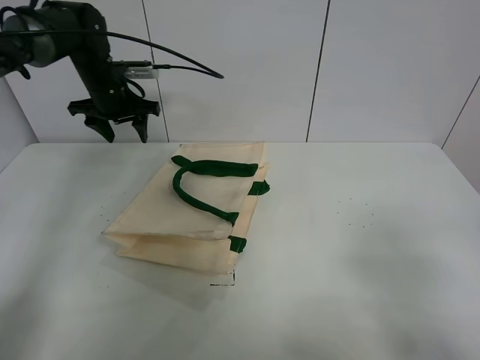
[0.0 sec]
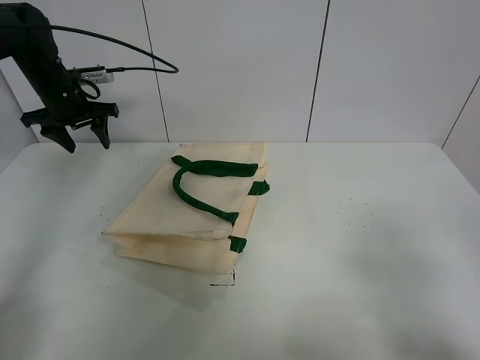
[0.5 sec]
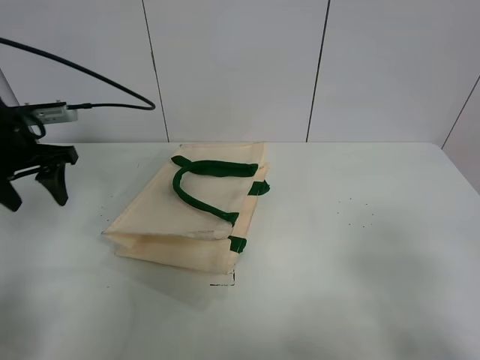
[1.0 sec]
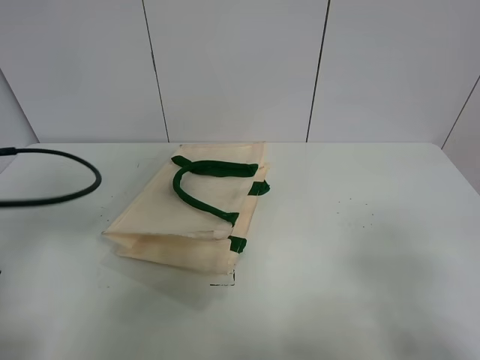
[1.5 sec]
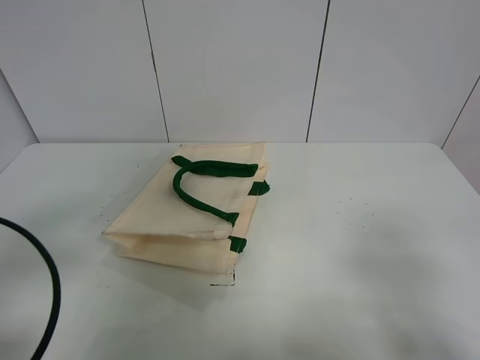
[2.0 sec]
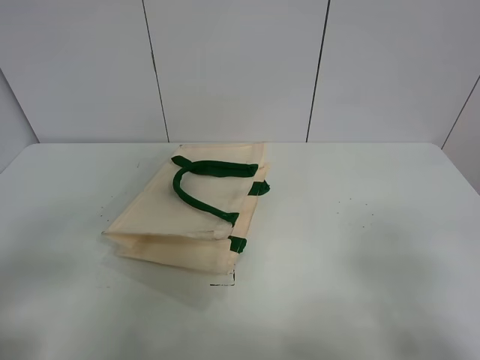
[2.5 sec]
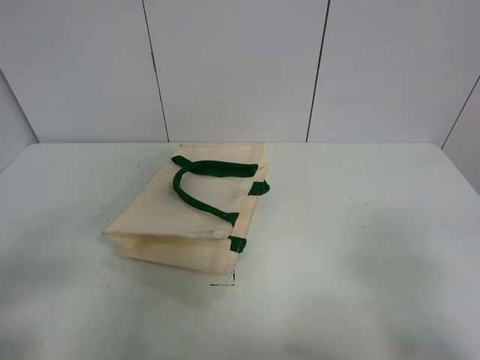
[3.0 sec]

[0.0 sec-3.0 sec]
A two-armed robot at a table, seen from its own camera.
Task of the whole recording: open the white linen bag and put the orange in the bag.
0.0 sec to 1.5 sec: The left gripper shifts about 35 cm backward.
1.5 sec to 3.0 sec: The left gripper heads backward, covering approximately 15 cm.
